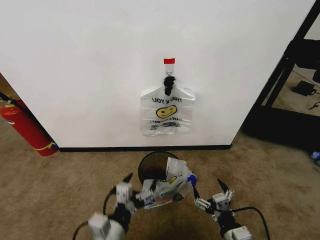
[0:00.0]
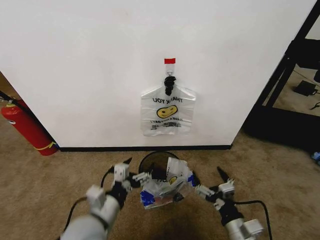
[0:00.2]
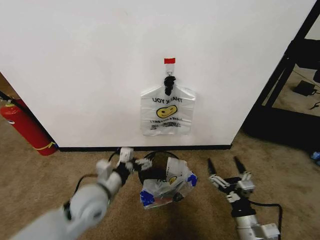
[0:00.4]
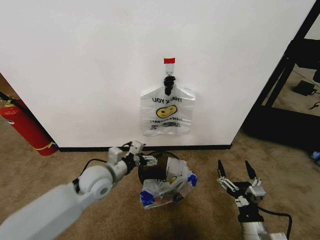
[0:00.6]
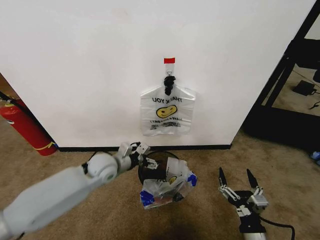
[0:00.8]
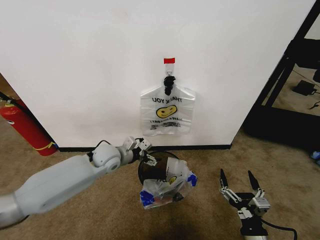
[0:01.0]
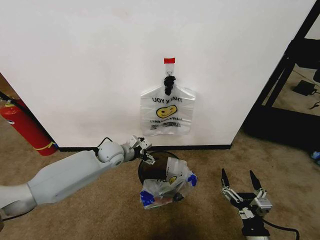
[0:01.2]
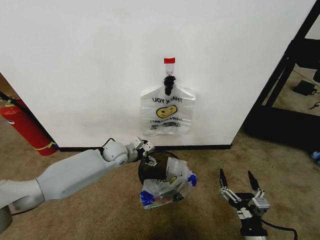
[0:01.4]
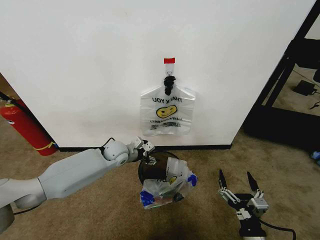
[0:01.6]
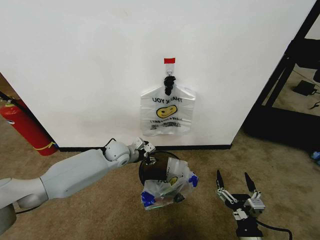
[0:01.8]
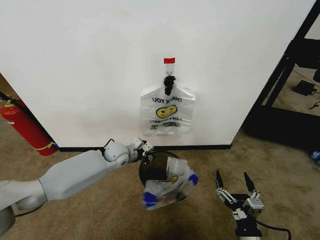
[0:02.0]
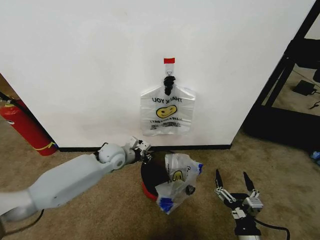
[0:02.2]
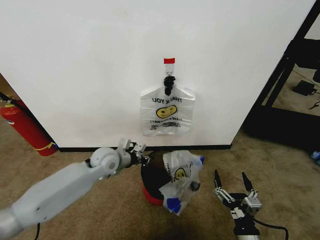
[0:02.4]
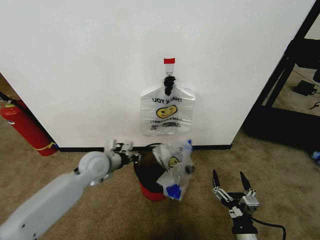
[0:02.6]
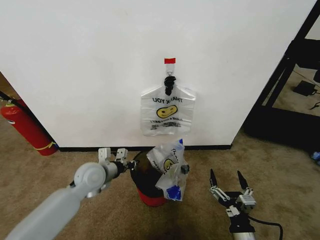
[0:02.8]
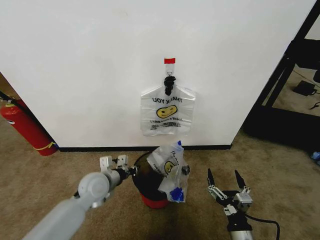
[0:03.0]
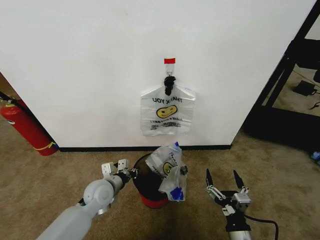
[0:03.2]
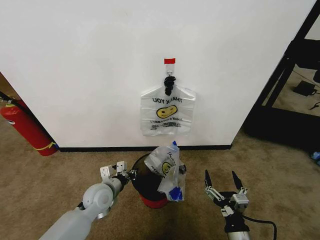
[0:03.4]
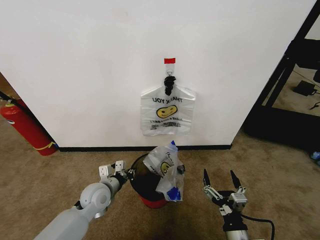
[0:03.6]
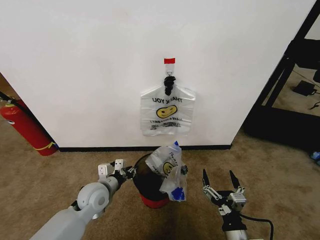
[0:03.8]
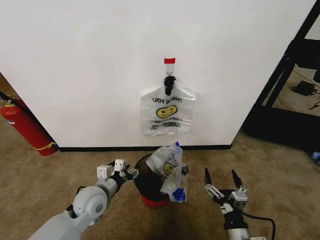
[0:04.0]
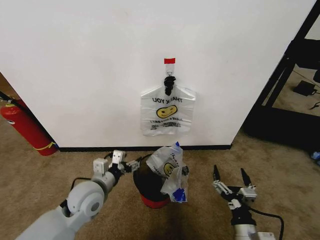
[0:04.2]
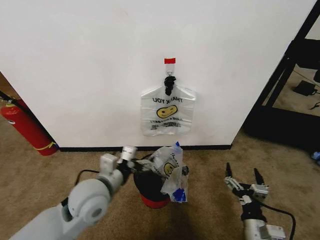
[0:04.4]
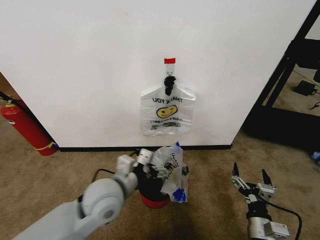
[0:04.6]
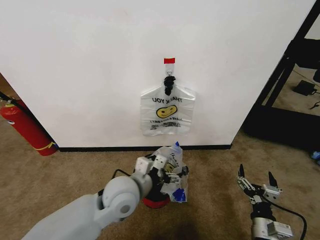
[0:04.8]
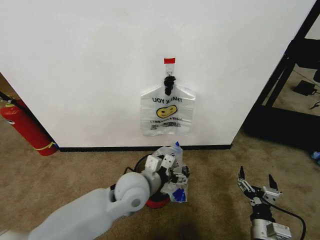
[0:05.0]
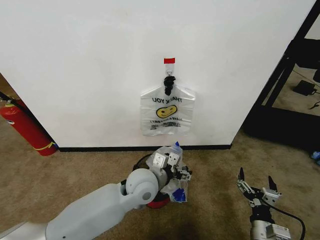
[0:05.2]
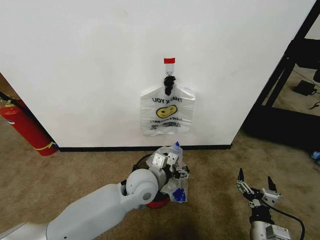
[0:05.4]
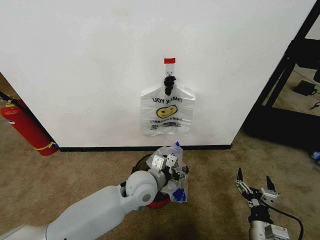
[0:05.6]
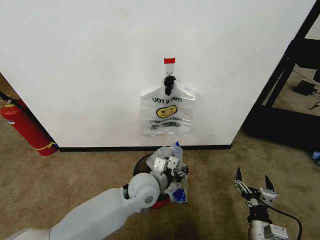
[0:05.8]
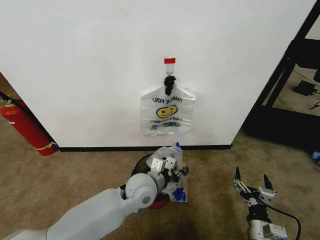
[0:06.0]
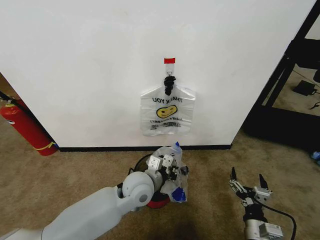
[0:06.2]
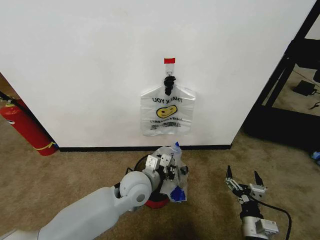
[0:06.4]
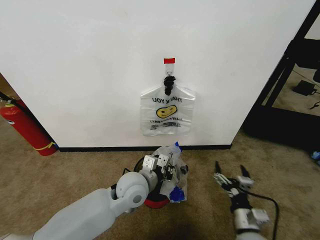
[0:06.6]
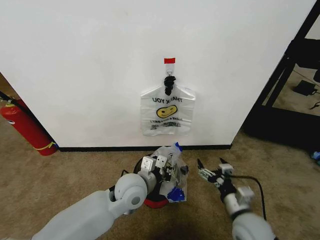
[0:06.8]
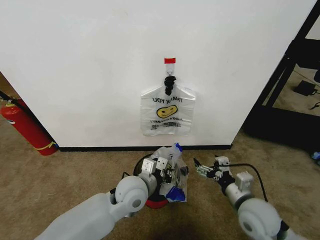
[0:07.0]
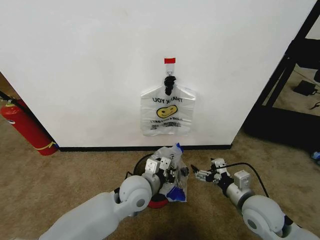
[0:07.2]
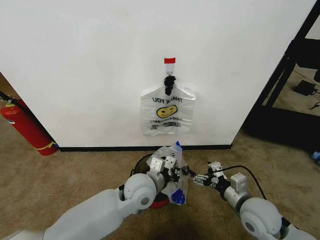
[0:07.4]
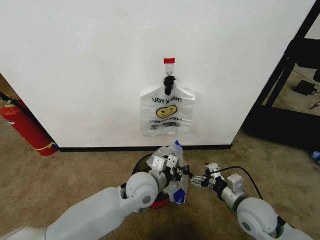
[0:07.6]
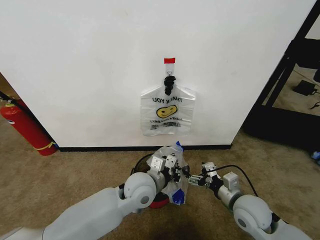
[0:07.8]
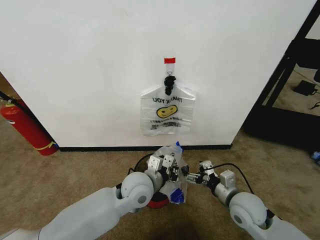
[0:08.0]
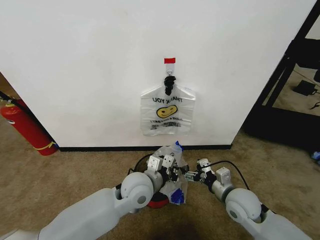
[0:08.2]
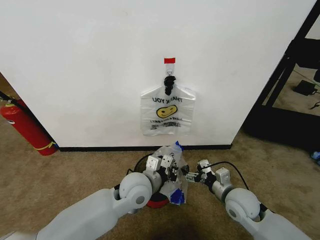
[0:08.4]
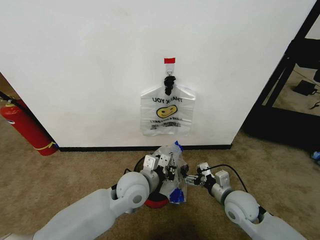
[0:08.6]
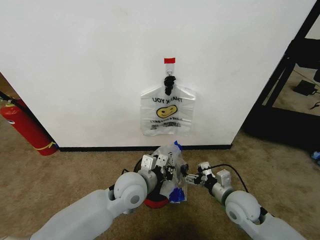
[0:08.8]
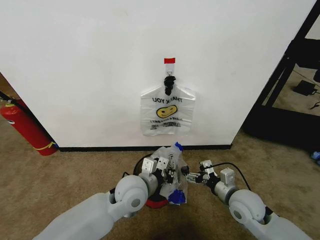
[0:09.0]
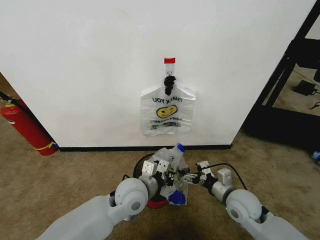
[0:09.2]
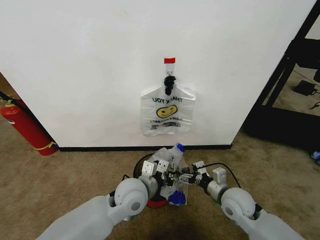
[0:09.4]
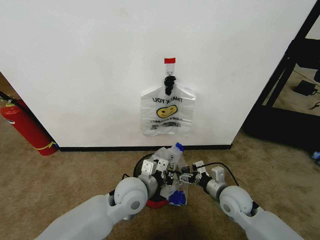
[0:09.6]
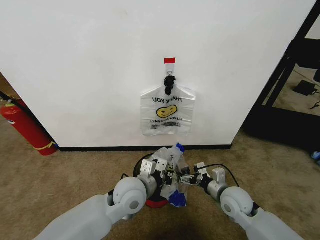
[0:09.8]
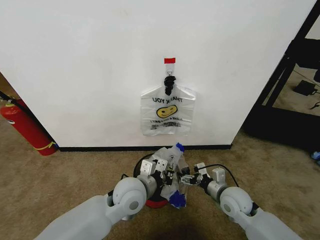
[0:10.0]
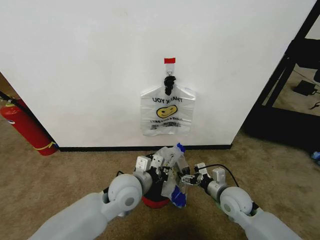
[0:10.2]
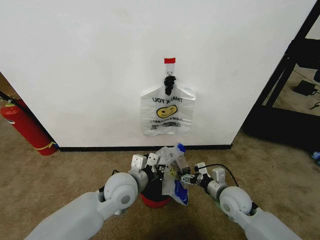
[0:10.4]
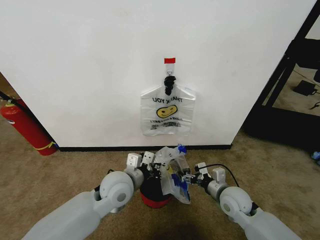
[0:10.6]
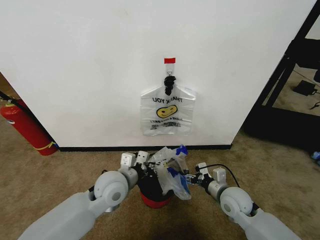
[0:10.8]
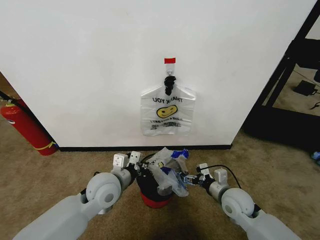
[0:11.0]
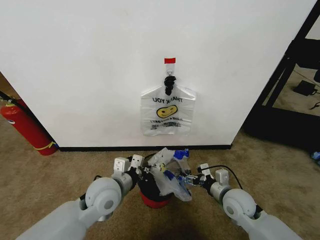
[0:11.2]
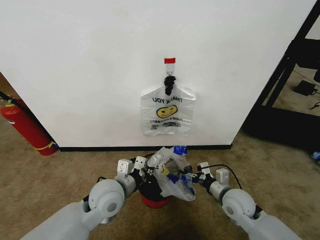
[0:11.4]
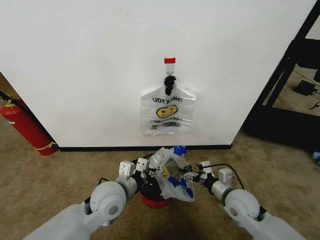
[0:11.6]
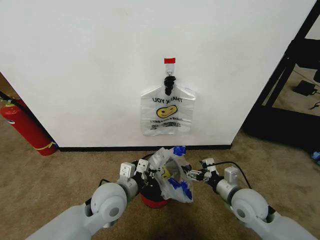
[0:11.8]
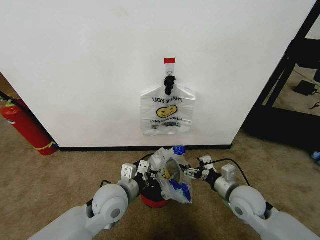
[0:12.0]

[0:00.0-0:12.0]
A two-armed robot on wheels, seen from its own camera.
Task of the whole recording: Pick up the garbage bag from the wall and place it over the trash bin.
0:00.0 to 0:01.6: The left gripper shifts roughly 35 cm forward, and closes up.
0:01.6 to 0:03.0: The left gripper heads backward, covering approximately 15 cm, and closes its fingers.
0:03.0 to 0:04.4: The left gripper goes about 10 cm upward and backward, and opens its fingers.
0:04.4 to 0:06.0: The left gripper shifts about 15 cm to the right and downward, and closes.
0:06.0 to 0:07.6: The right gripper moves forward and upward, roughly 15 cm.
0:07.6 to 0:09.0: The grippers make only small movements.
0:09.0 to 0:10.4: There are only small adjustments of the grippers.
0:10.4 to 0:12.0: The right gripper changes place by about 5 cm.

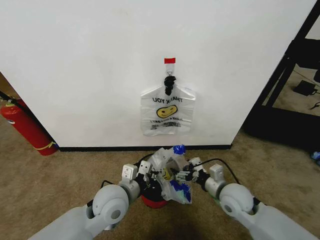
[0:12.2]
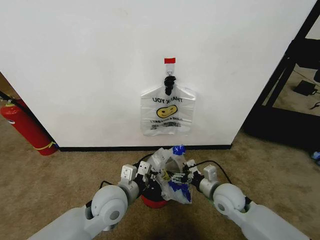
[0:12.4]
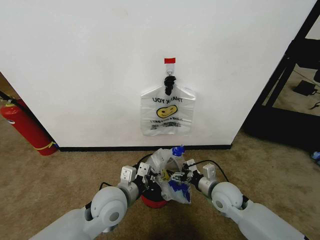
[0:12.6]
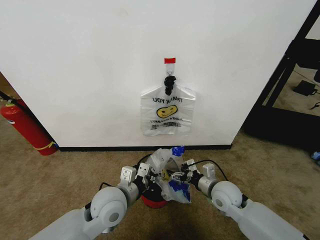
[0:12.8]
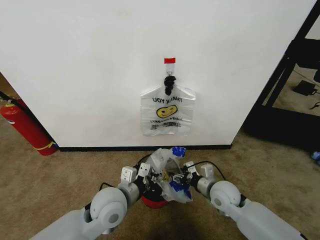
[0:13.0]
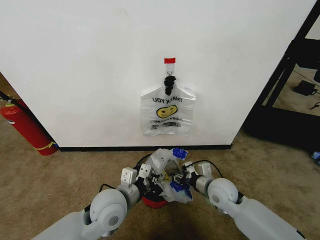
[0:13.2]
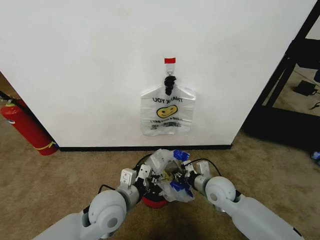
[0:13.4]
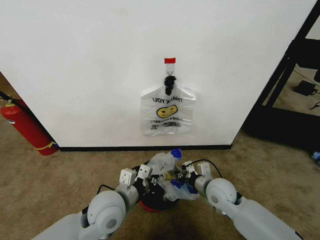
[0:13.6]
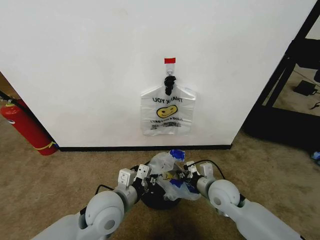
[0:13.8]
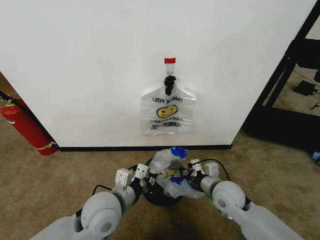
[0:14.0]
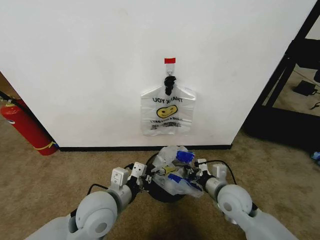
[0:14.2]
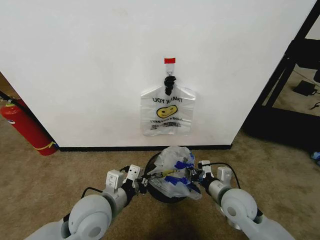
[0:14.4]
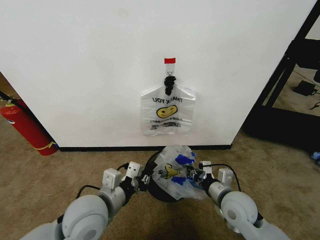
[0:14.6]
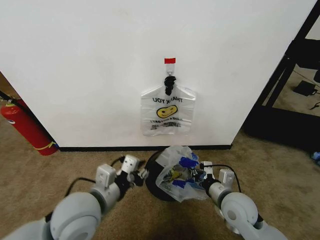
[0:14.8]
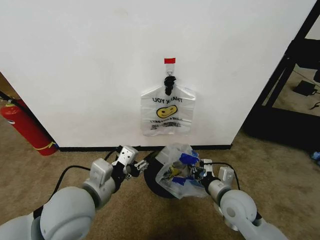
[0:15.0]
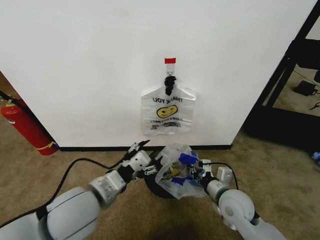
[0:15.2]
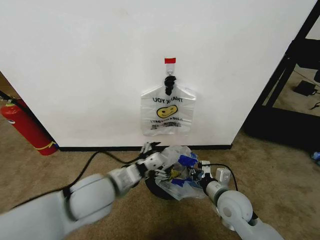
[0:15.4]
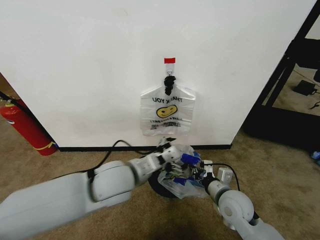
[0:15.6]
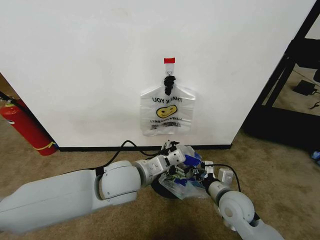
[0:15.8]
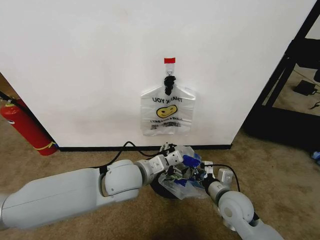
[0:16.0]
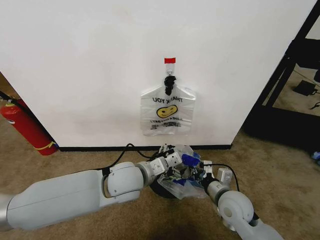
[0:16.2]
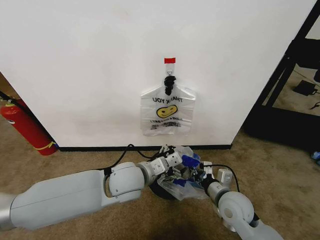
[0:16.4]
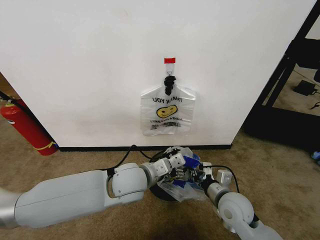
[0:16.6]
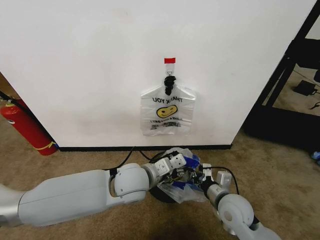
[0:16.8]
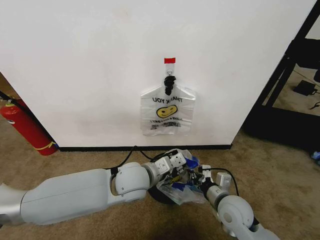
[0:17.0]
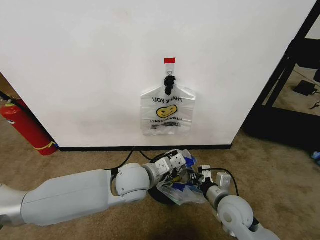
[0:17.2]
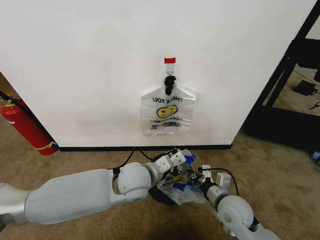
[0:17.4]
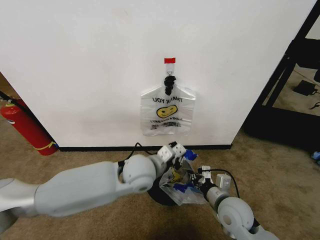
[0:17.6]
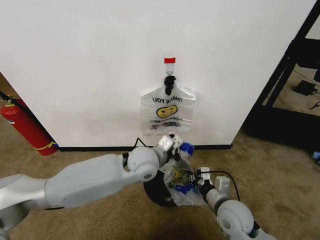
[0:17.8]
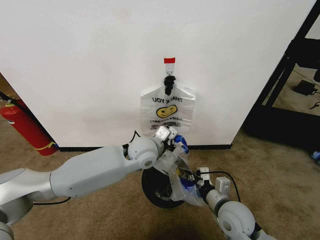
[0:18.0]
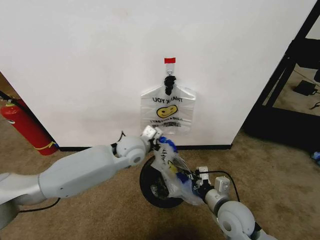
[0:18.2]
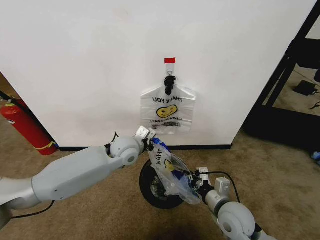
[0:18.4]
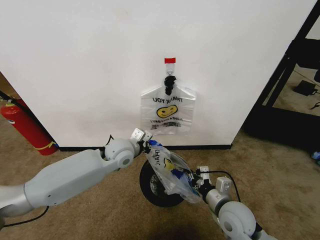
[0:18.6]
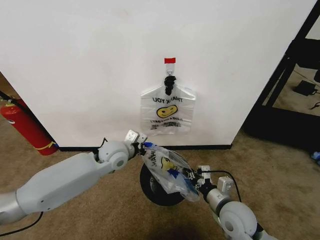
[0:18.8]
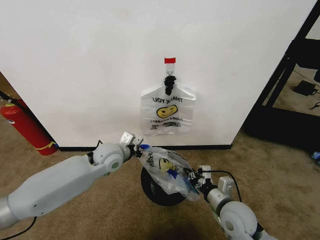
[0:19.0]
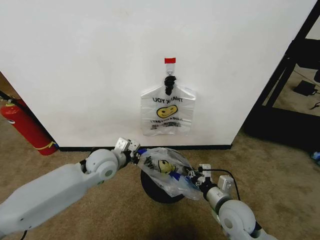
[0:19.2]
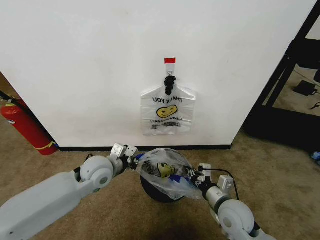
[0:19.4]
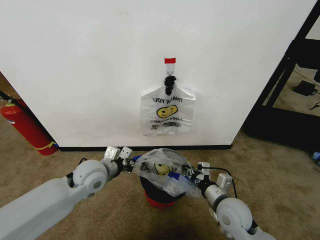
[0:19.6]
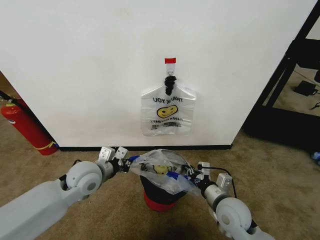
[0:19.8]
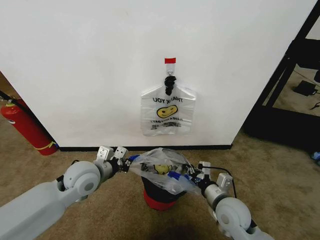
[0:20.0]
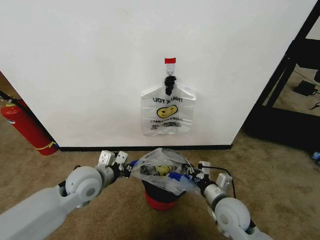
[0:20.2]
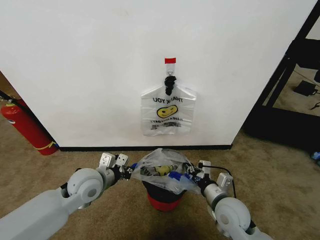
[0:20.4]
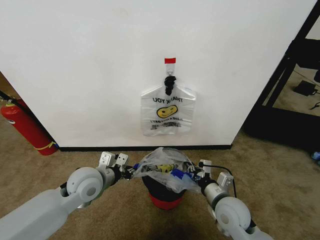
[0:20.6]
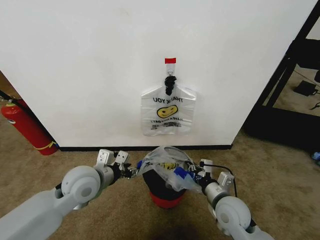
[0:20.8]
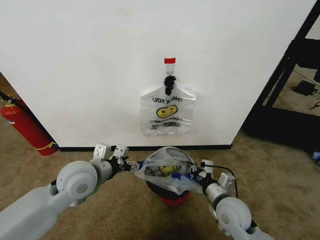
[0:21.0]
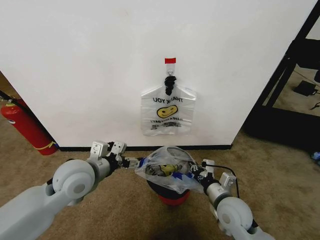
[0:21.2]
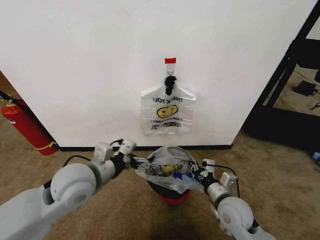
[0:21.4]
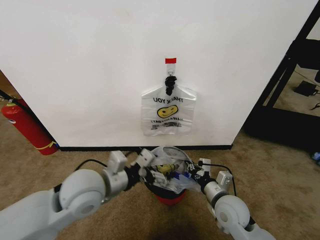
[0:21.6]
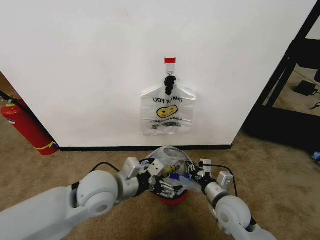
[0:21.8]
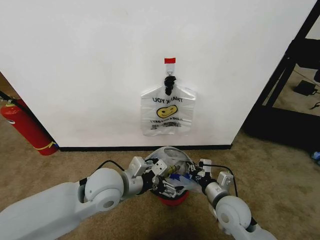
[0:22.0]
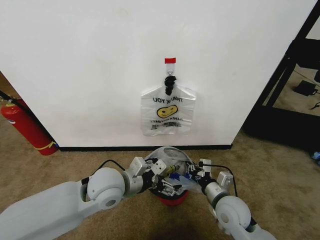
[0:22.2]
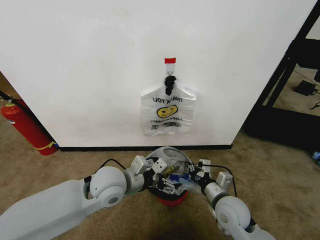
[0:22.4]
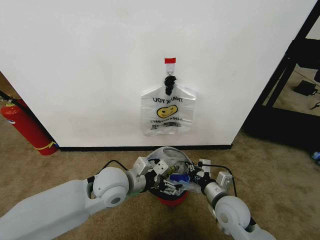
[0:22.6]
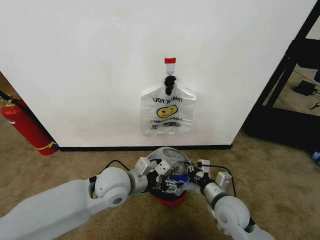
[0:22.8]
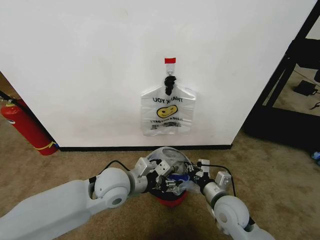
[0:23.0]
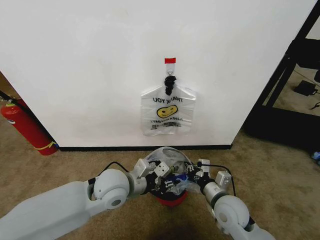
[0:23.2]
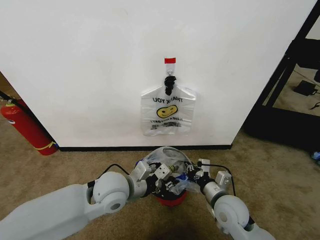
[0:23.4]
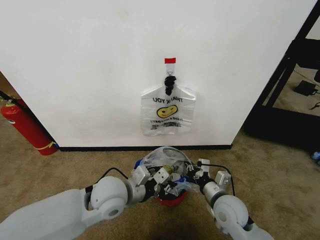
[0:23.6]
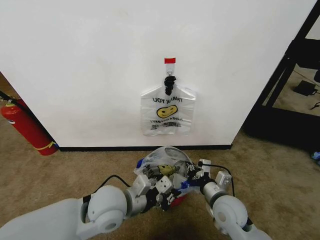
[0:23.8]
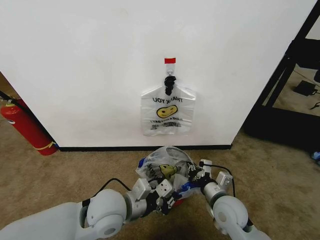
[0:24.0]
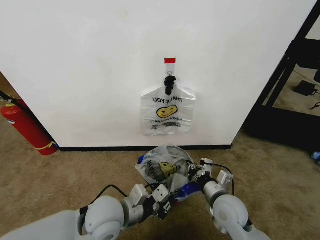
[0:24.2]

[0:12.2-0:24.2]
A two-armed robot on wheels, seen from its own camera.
Task of the whole recording: Pick up the garbage bag from the wall and place it over the trash bin.
0:12.2 to 0:13.8: The right gripper closes up.
0:13.8 to 0:15.2: The left gripper moves upward, some 10 cm, and opens up.
0:15.2 to 0:16.6: The left gripper is displaced to the right and forward by about 15 cm.
0:16.6 to 0:18.2: The left gripper travels forward by some 10 cm, and closes up.
0:18.2 to 0:19.8: The left gripper goes roughly 15 cm to the left and backward.
0:19.8 to 0:21.2: The left gripper heads upward, covering about 5 cm, and opens its fingers.
0:21.2 to 0:22.6: The left gripper moves to the right, about 10 cm.
0:22.6 to 0:24.2: The left gripper shifts approximately 5 cm backward, and closes its fingers.
